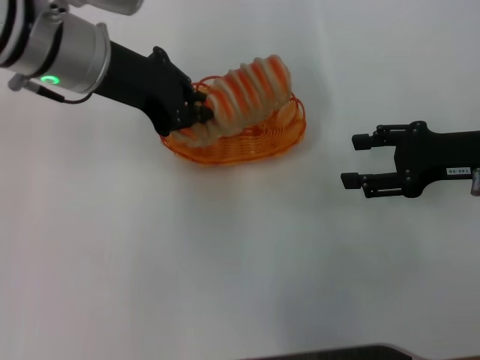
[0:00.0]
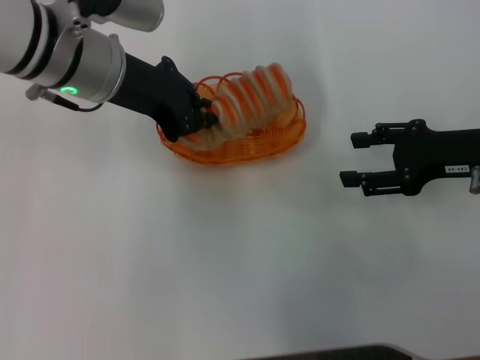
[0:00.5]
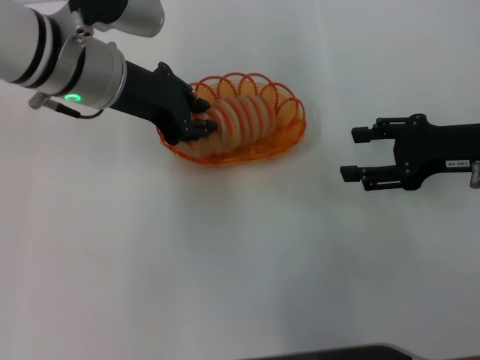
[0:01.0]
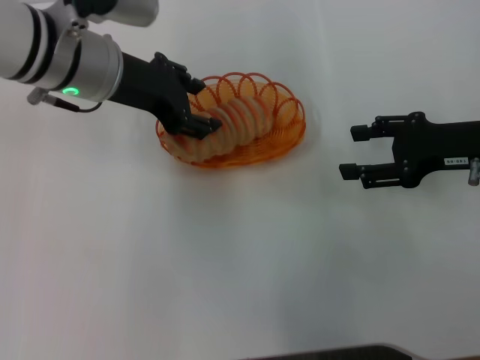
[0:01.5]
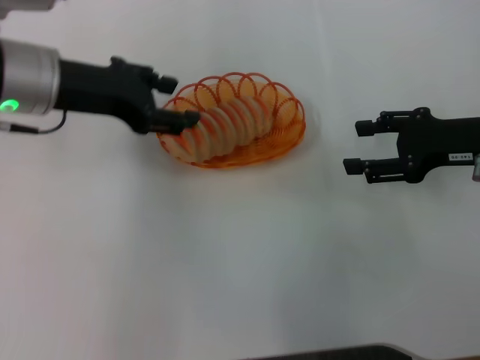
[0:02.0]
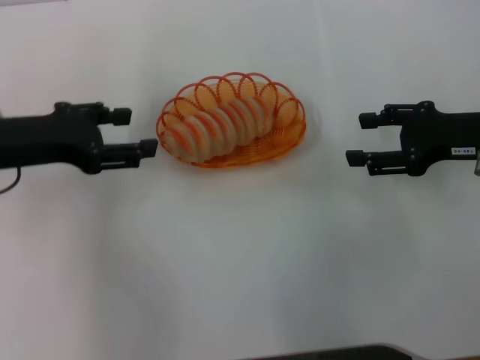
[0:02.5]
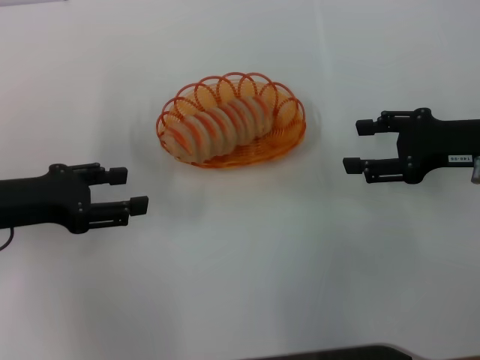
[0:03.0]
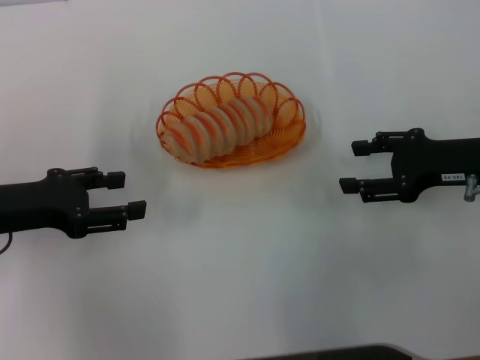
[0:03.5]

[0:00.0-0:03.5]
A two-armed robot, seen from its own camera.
0:00.0 to 0:02.0: The left gripper changes place by approximately 5 cm, and opens up.
0:02.0 to 0:03.5: The left gripper goes about 15 cm to the left, backward and downward.
